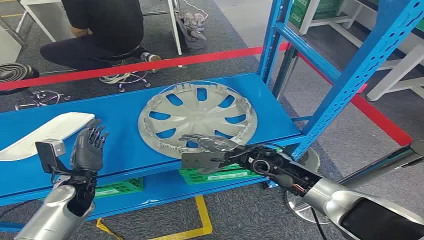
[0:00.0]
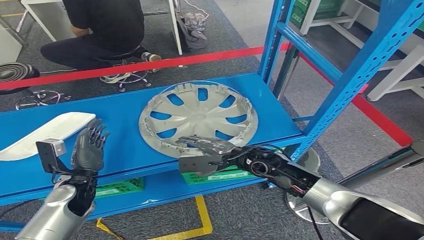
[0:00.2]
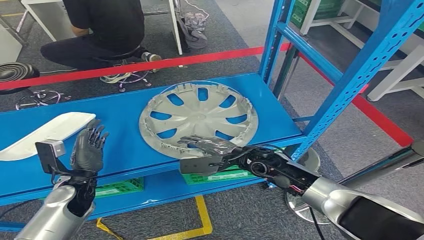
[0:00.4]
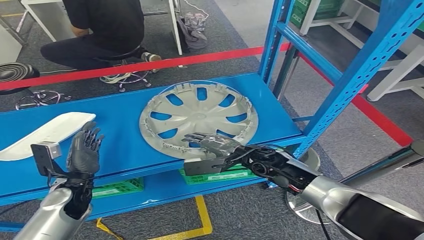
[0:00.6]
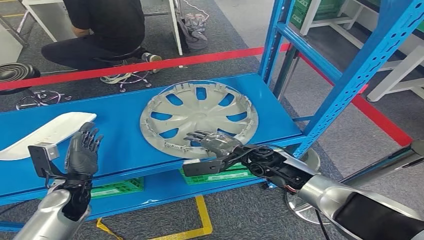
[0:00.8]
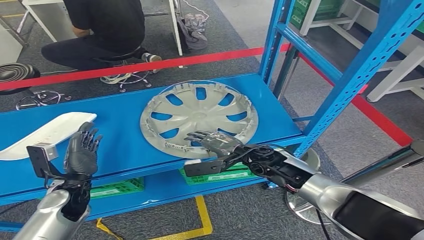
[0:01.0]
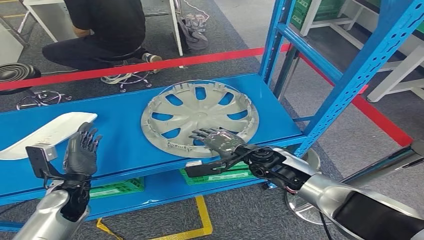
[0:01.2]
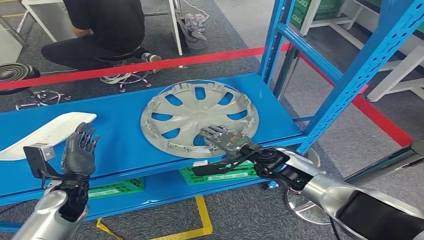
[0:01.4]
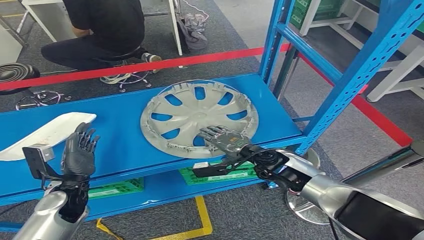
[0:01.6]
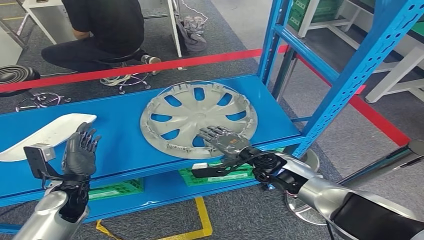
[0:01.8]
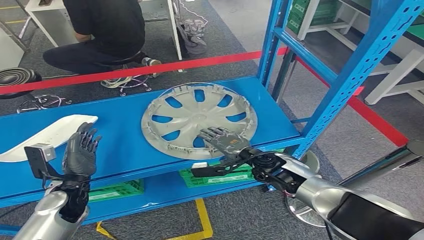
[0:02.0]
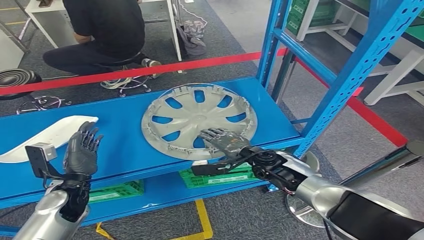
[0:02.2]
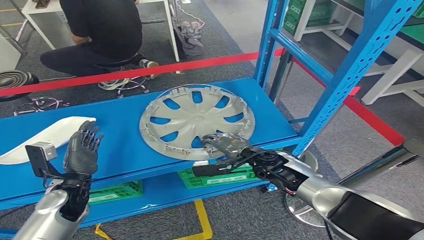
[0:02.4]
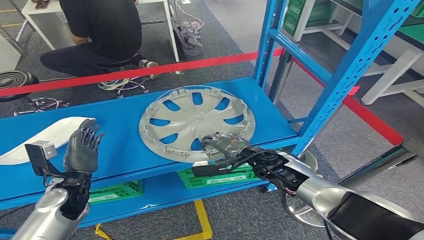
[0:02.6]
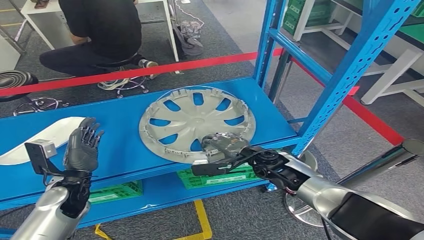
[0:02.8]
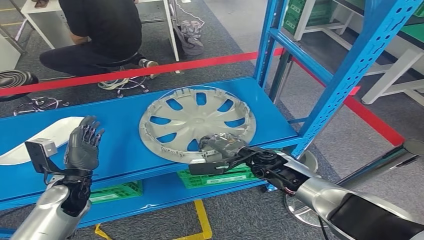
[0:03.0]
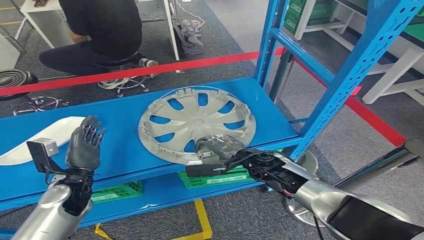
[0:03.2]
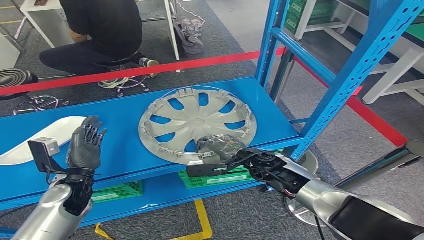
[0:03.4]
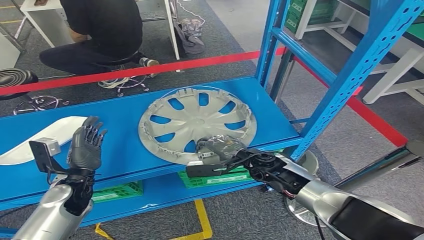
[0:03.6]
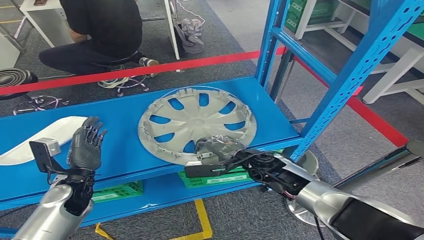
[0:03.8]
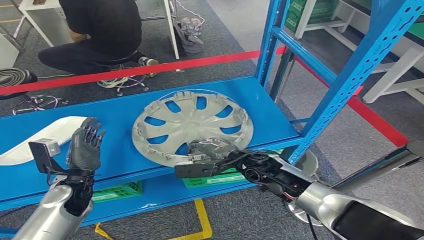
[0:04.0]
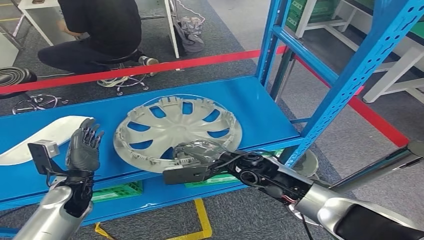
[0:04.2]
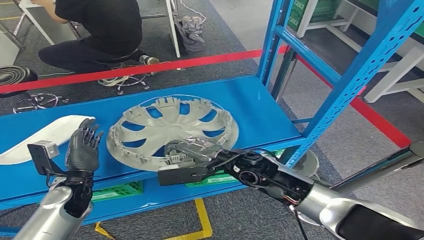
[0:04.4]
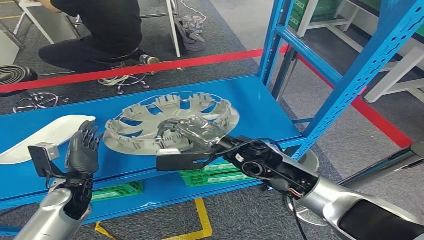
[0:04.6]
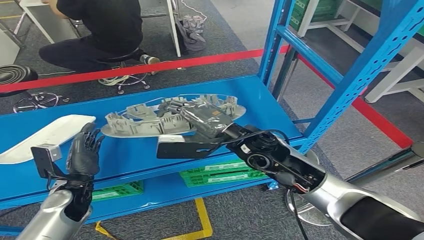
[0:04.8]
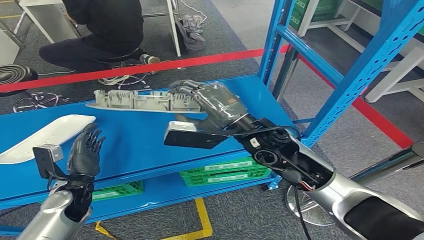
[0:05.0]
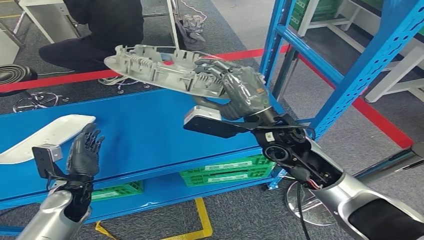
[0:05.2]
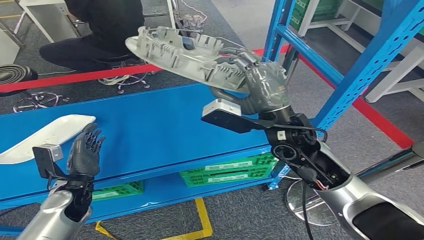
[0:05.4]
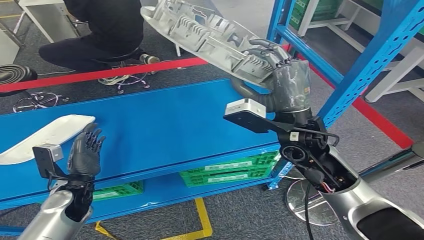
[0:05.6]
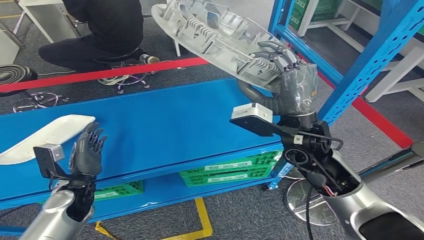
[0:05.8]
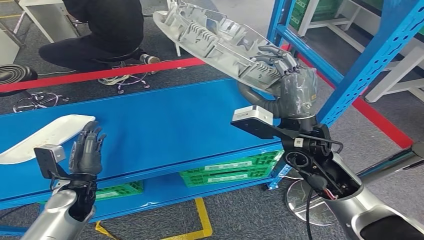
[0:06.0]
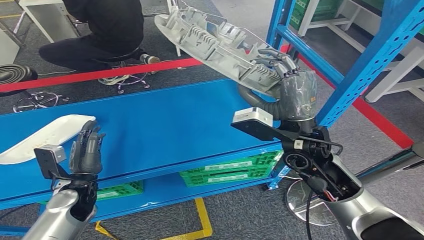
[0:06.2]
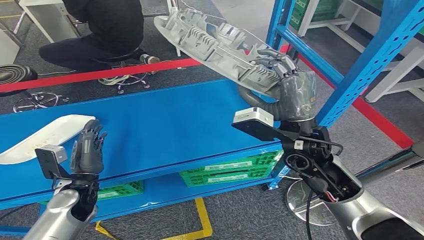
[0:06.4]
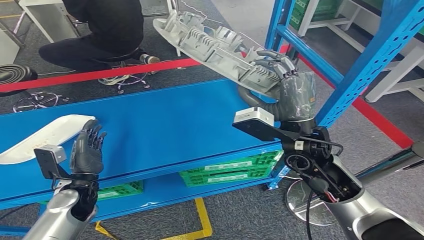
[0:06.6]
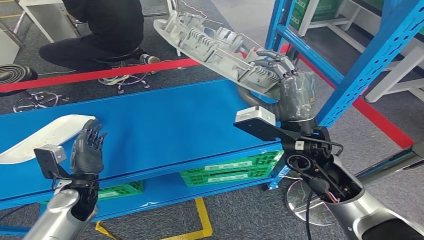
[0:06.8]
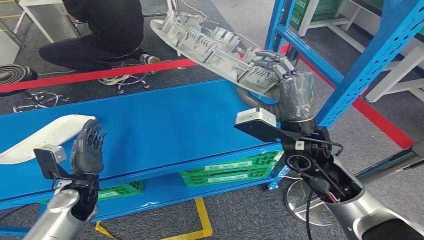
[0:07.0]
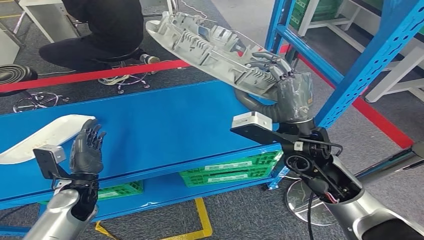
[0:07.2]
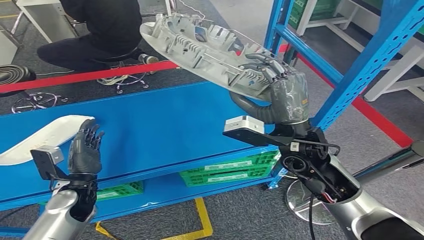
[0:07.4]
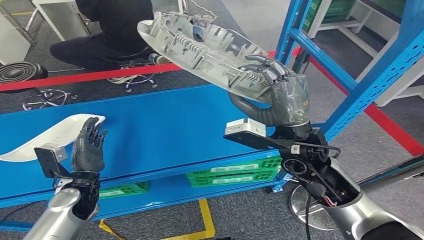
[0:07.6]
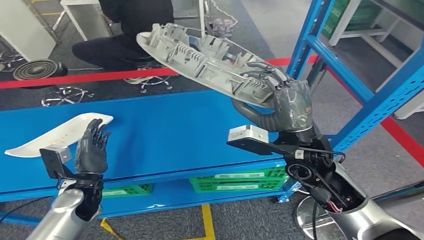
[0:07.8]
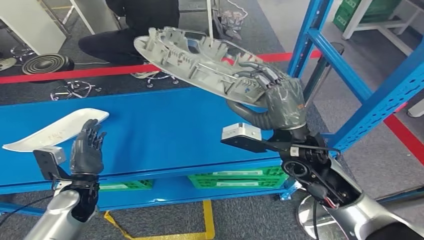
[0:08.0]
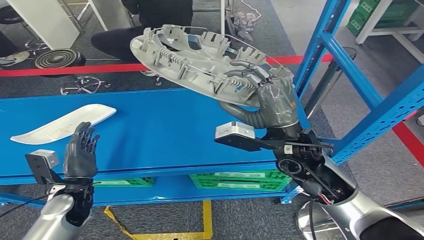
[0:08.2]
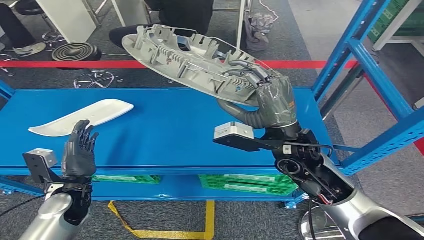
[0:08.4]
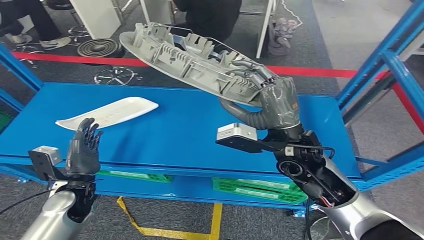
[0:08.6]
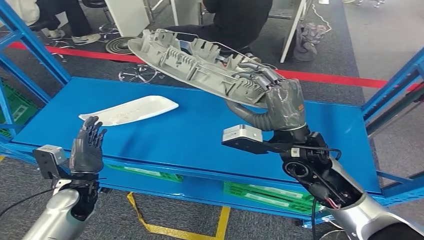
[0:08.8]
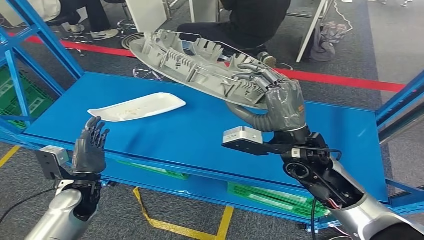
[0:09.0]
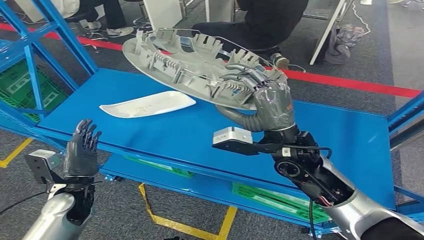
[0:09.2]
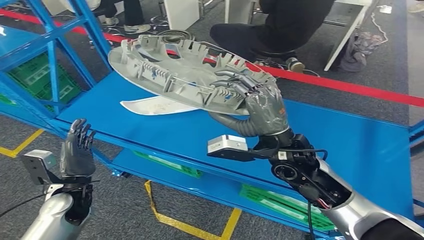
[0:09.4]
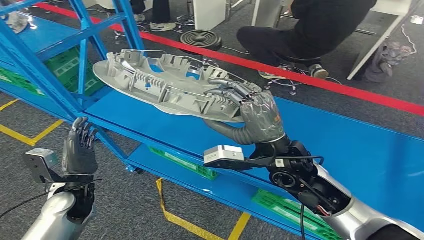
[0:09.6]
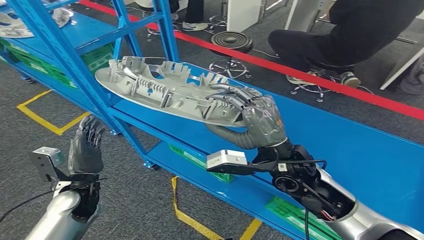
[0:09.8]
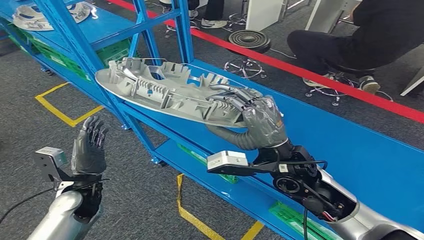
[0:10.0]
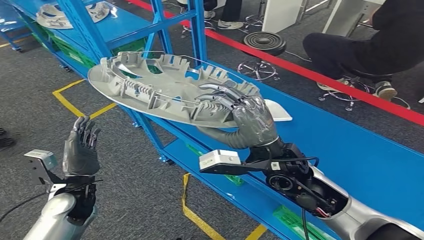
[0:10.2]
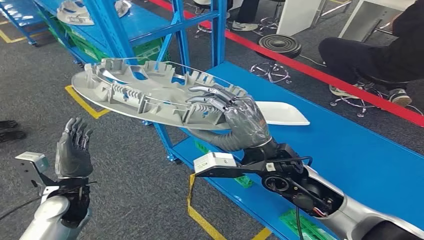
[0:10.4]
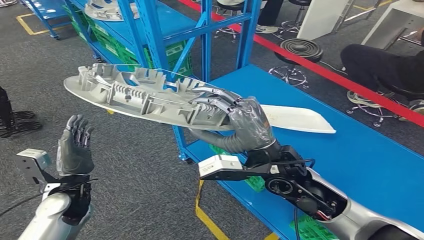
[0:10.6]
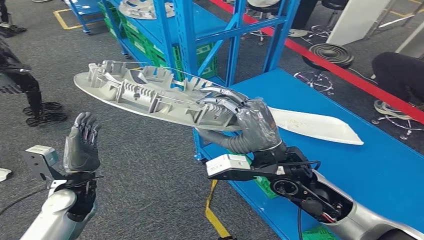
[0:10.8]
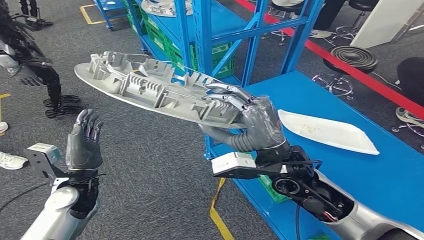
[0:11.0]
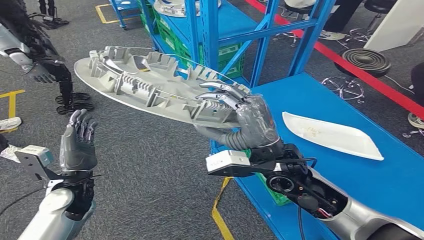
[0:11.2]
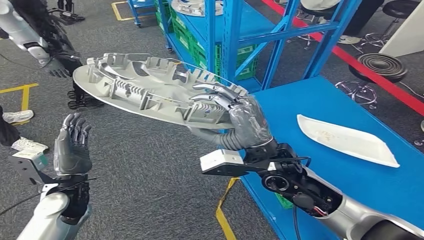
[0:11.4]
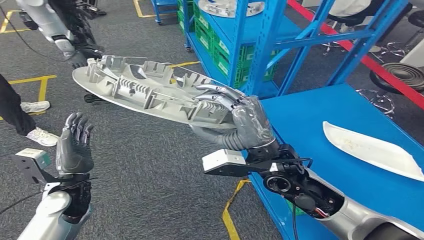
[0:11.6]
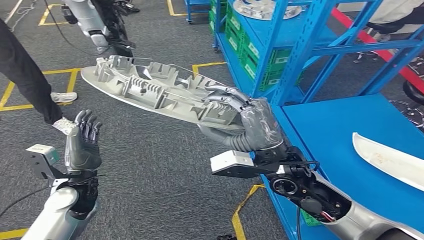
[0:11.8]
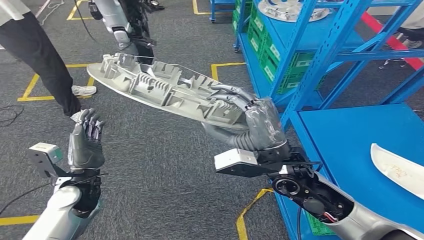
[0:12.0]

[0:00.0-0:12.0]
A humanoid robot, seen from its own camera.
Step, 0:00.0 to 0:06.8: Pick up the small parts from the shelf.

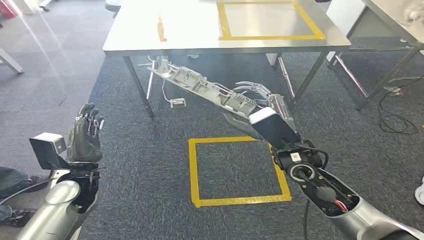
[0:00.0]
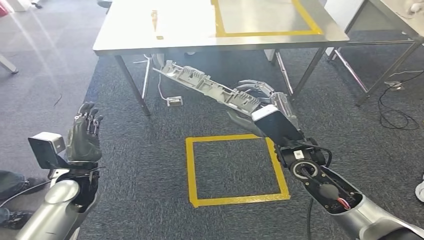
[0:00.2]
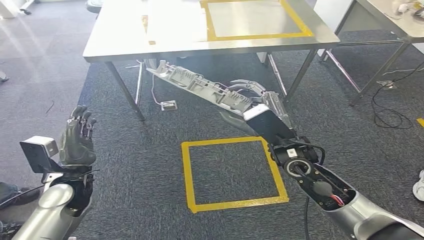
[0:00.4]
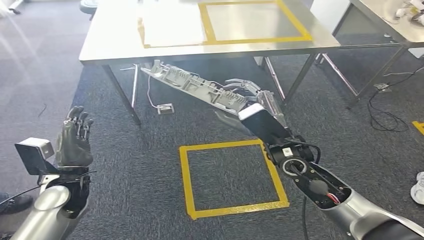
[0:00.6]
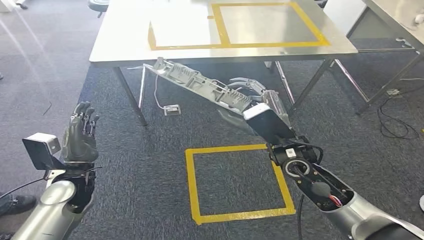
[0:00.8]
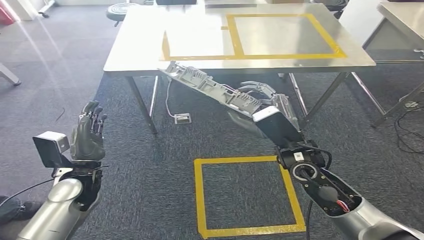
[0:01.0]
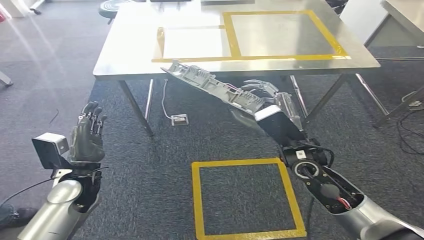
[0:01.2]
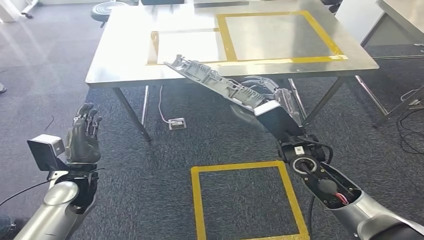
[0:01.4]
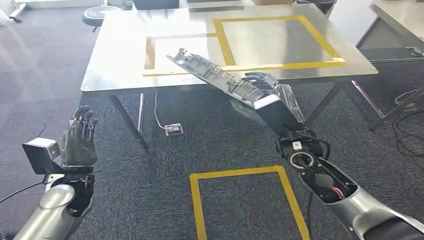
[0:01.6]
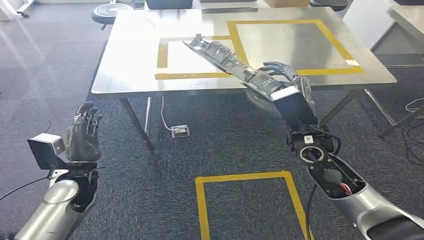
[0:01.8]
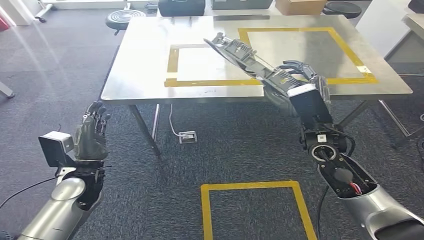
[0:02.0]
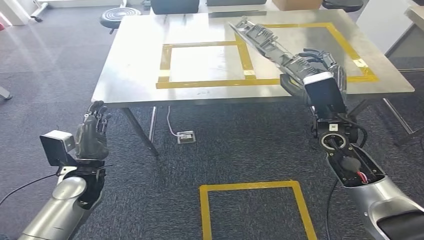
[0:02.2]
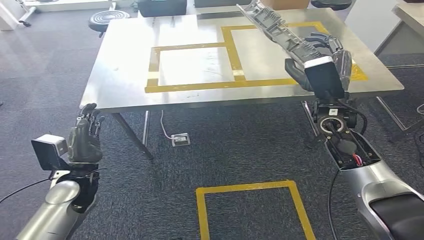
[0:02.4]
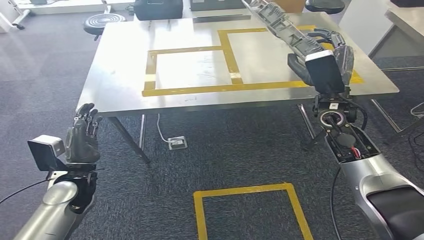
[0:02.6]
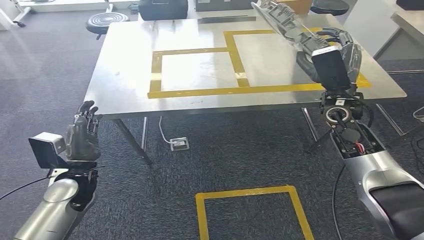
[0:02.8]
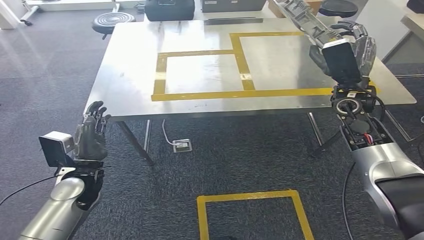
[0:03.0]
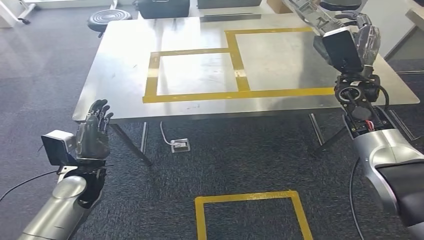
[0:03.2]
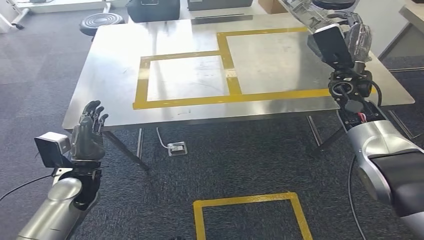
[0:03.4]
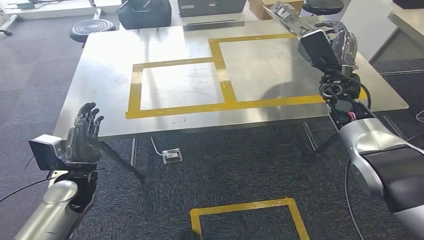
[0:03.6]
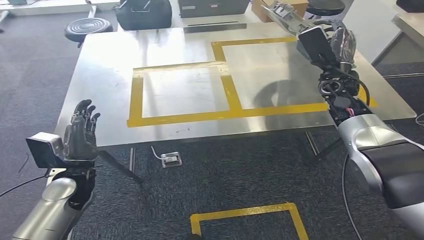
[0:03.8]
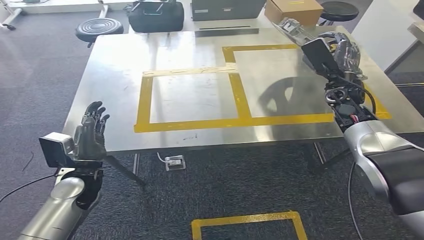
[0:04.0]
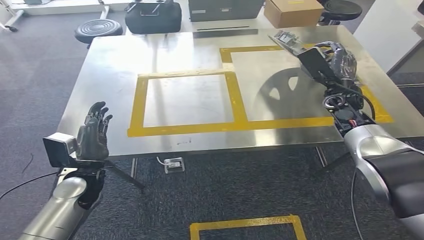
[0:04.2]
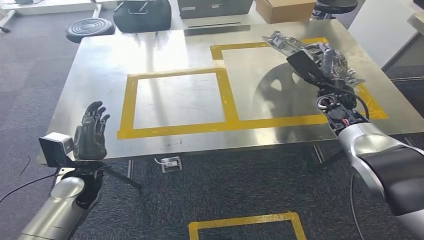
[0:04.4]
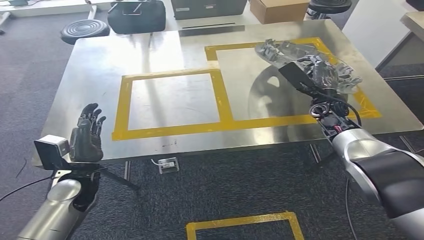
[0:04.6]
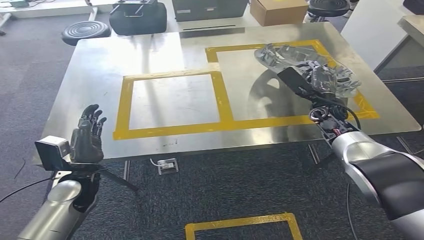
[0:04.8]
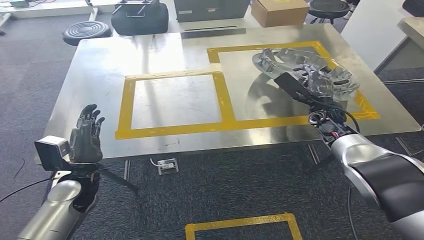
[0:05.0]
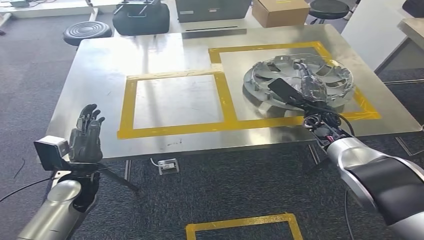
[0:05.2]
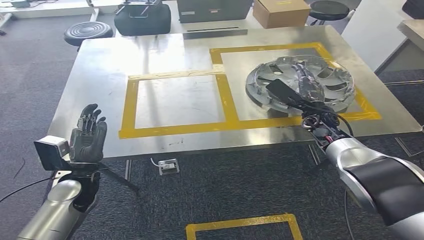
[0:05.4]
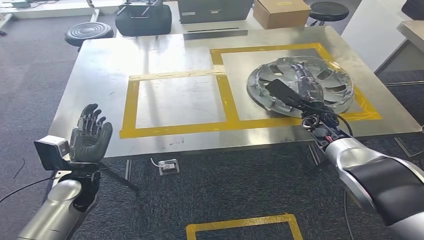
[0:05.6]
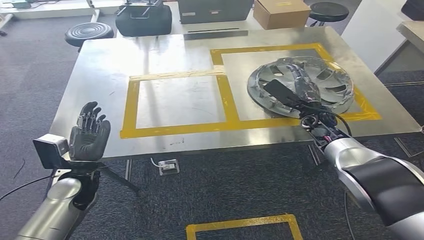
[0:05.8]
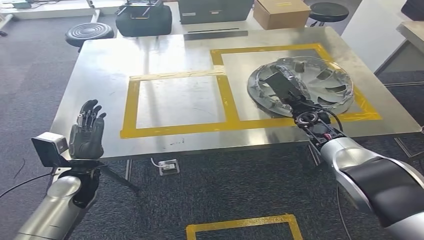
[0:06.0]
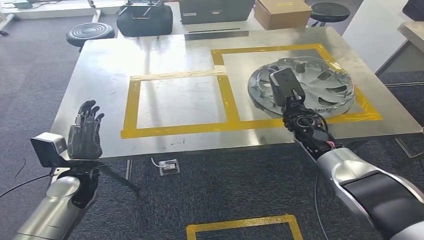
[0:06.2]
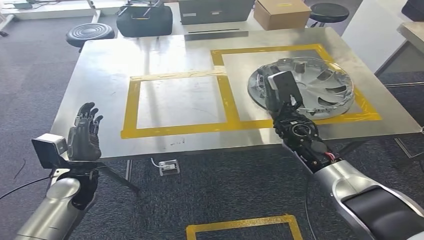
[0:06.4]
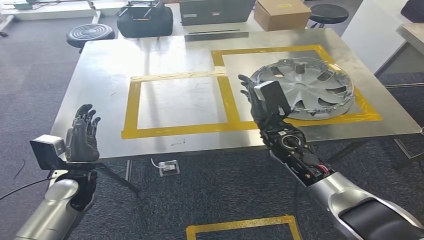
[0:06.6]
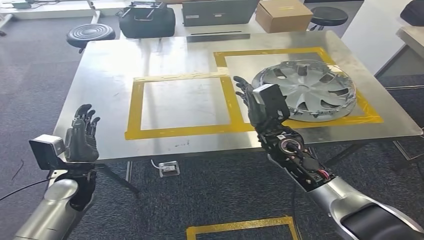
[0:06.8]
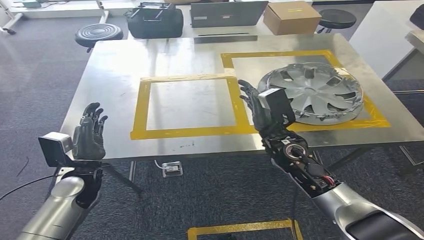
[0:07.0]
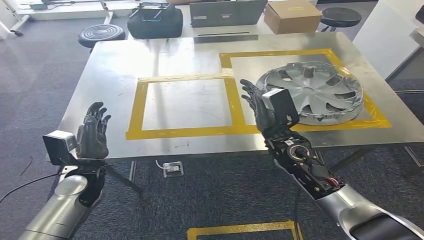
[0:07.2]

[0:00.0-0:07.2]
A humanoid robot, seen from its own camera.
Step, 0:00.0 to 0:02.0: Move the small parts to the workbench.
